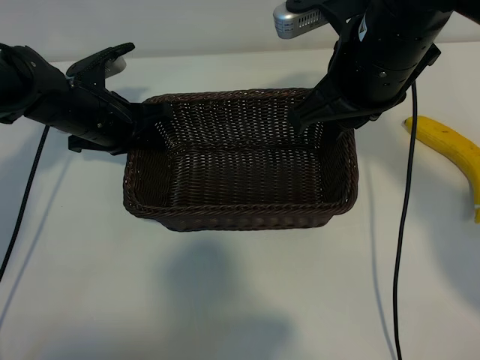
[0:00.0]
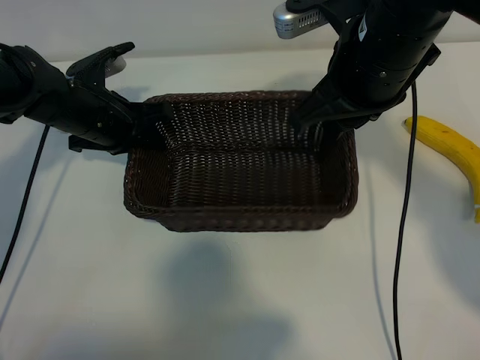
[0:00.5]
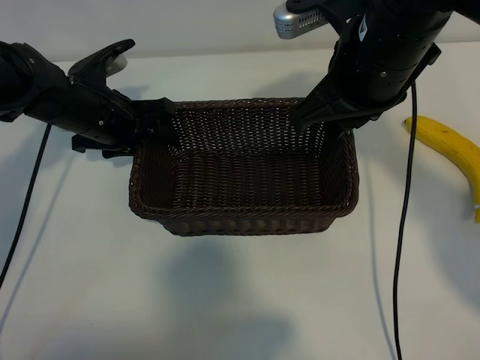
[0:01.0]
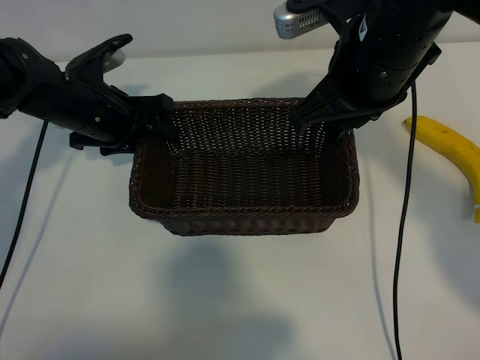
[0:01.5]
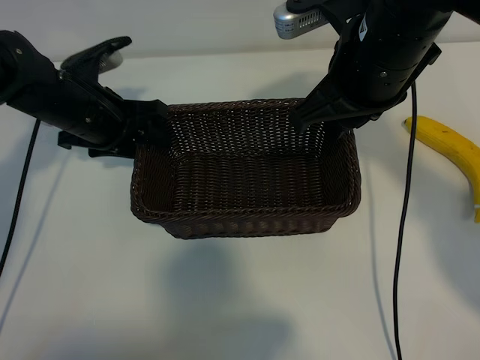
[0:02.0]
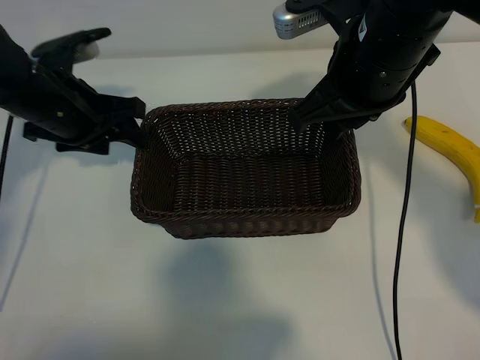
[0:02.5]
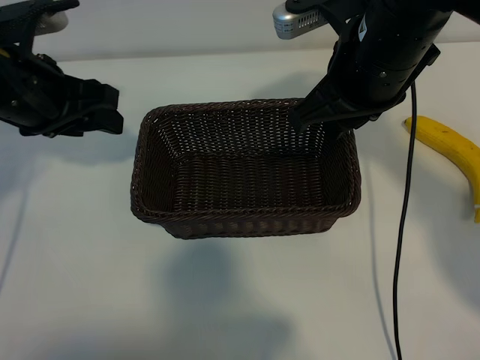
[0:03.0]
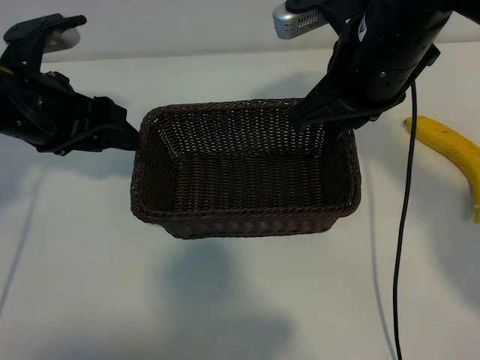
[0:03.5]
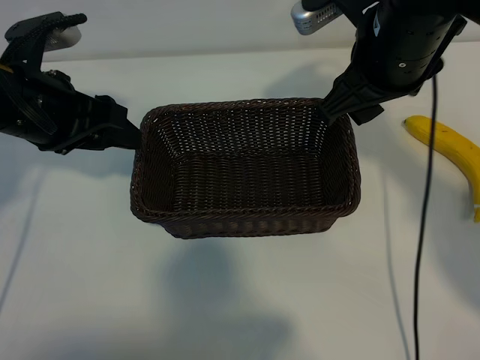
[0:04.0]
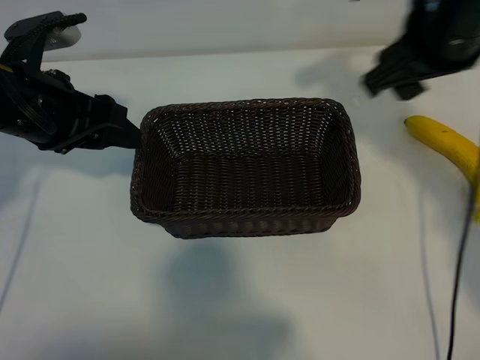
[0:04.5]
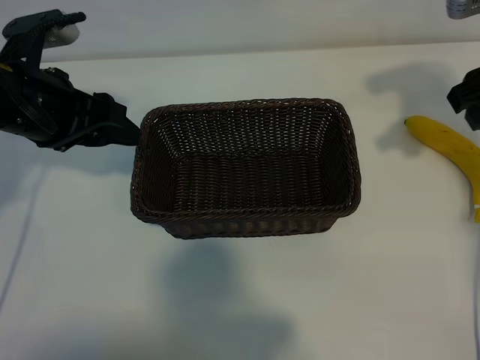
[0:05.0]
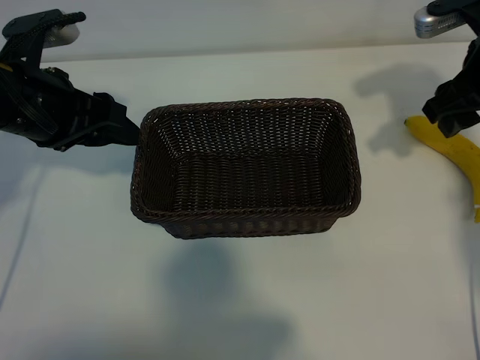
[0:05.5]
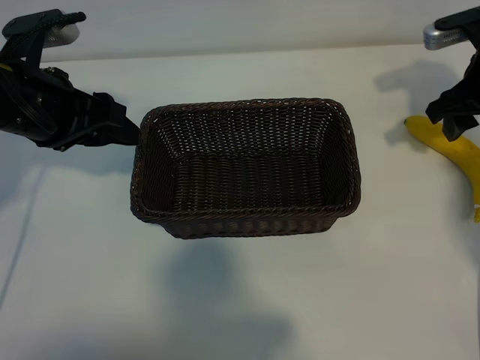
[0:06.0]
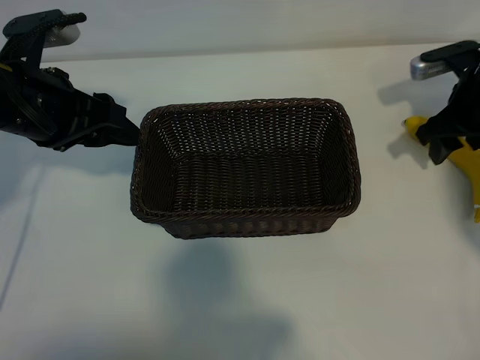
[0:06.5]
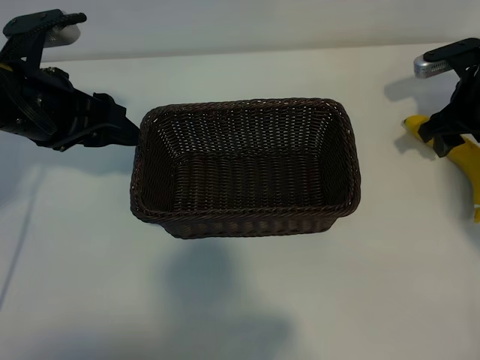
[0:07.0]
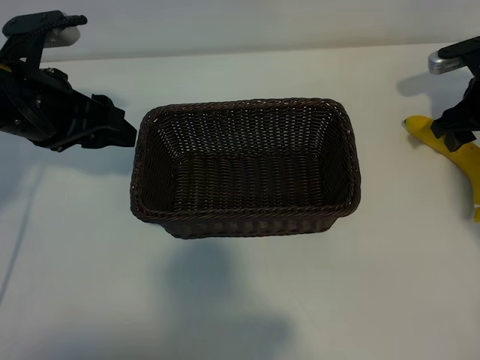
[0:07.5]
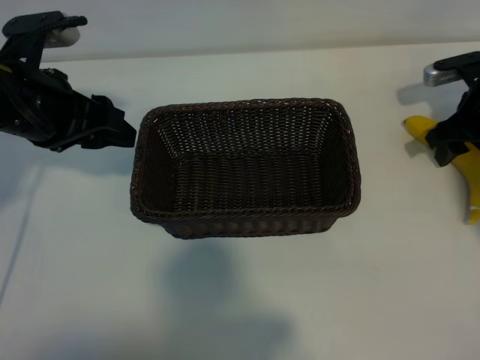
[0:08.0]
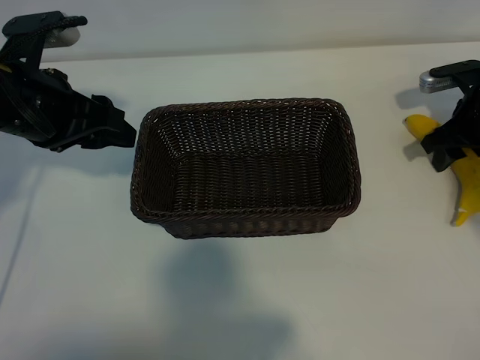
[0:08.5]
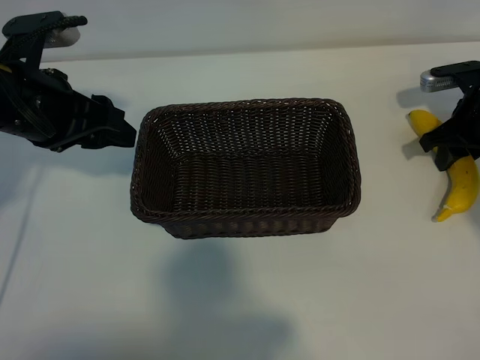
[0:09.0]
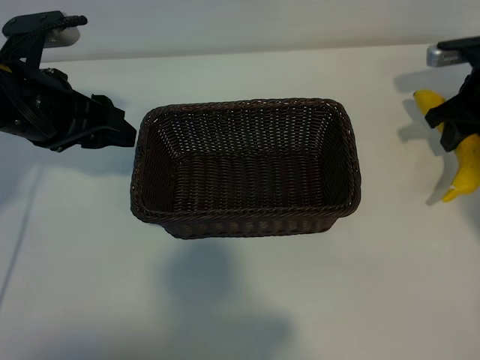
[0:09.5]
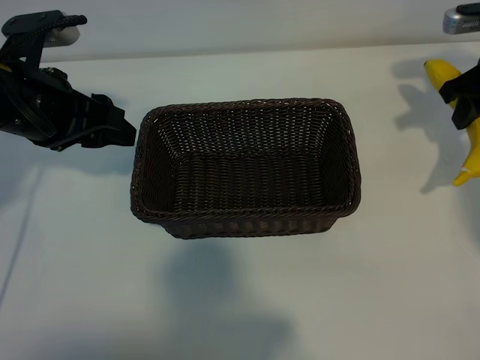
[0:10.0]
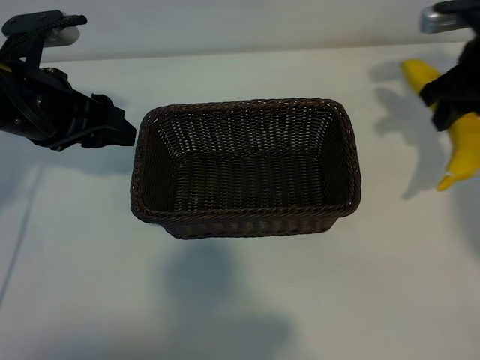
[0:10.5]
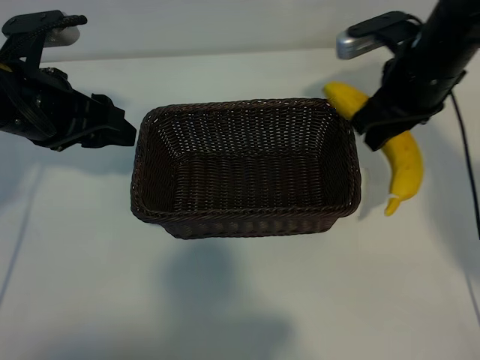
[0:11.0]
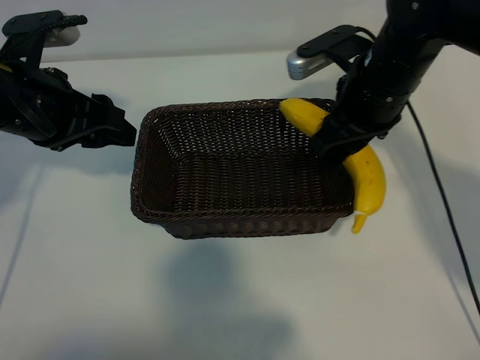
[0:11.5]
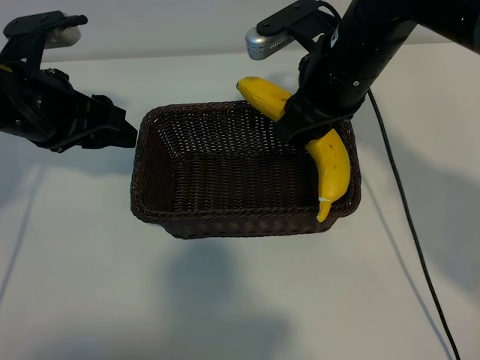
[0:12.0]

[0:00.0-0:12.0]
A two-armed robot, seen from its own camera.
Task of the whole recording: pick up the banana and put it into the basket.
Step, 0:00.0 to 0:02.5: Place the basket in the center of the table with the left gripper.
Step, 0:03.0 to 0:09.0: Grasp the banana with right gripper.

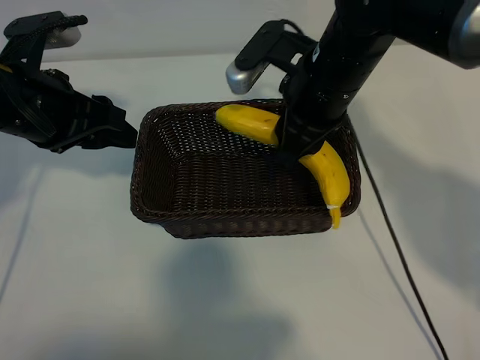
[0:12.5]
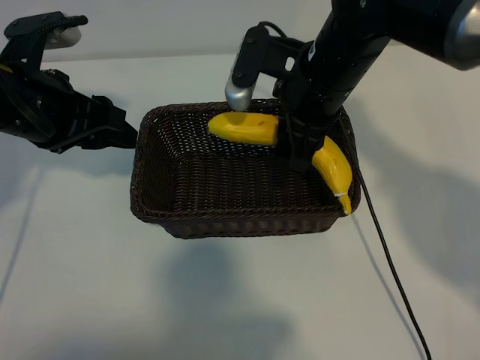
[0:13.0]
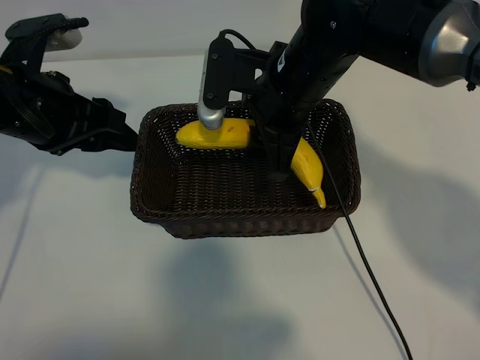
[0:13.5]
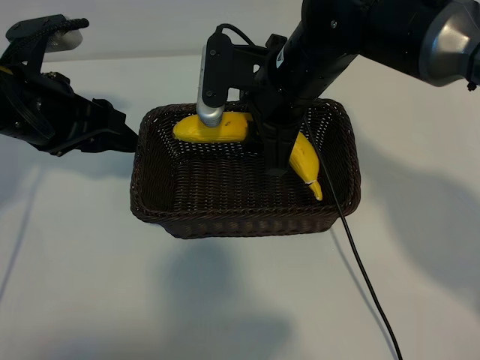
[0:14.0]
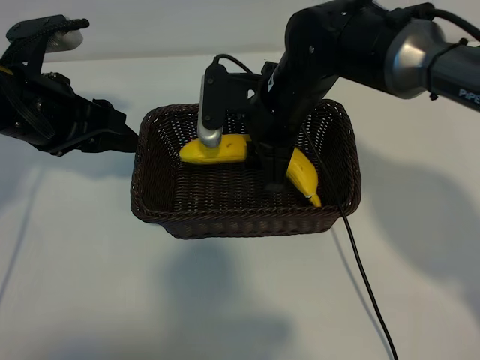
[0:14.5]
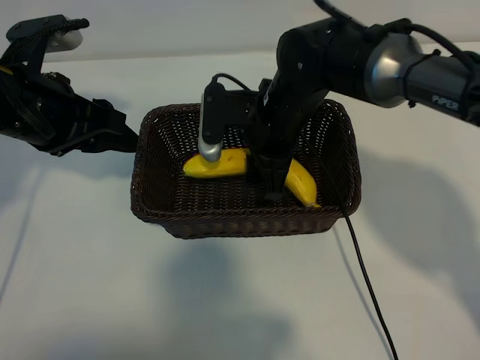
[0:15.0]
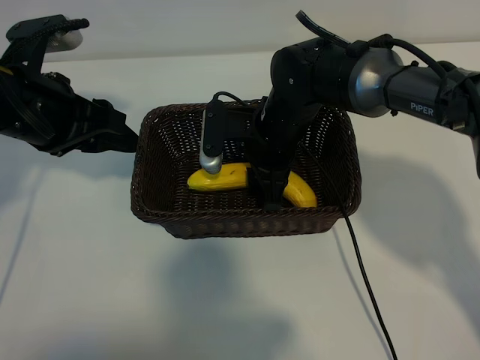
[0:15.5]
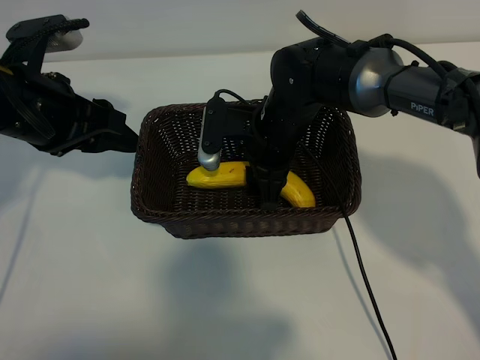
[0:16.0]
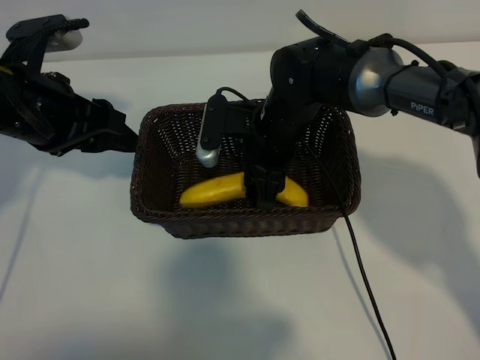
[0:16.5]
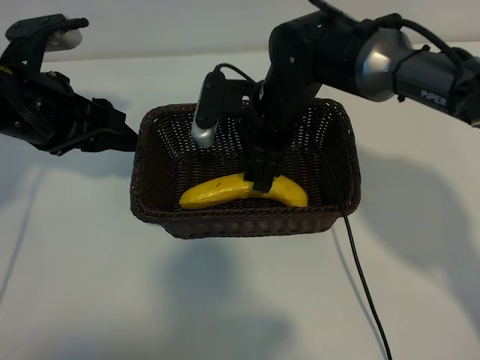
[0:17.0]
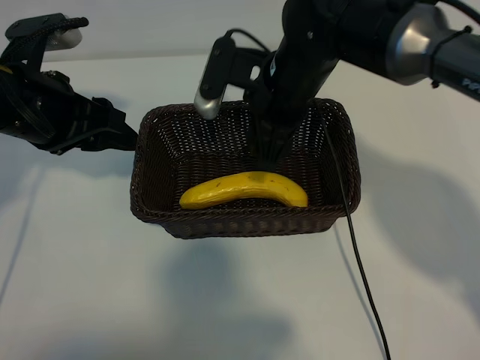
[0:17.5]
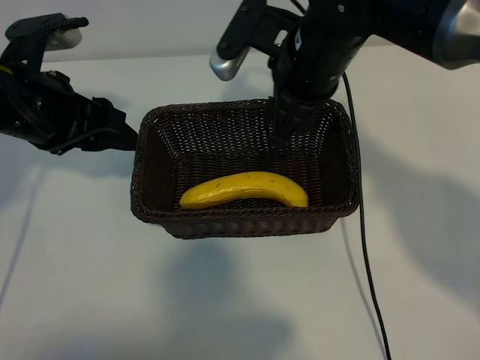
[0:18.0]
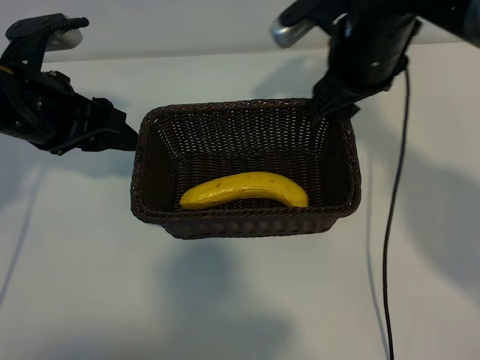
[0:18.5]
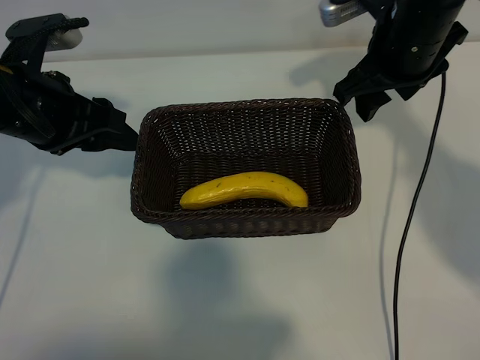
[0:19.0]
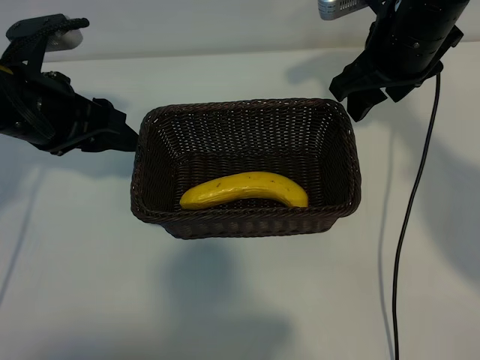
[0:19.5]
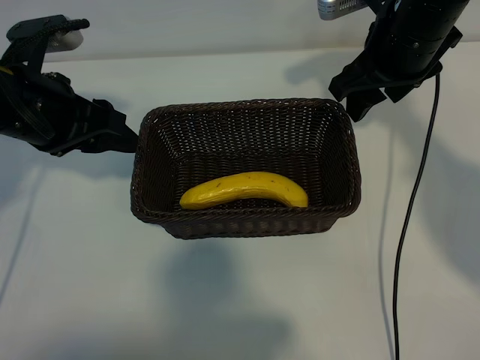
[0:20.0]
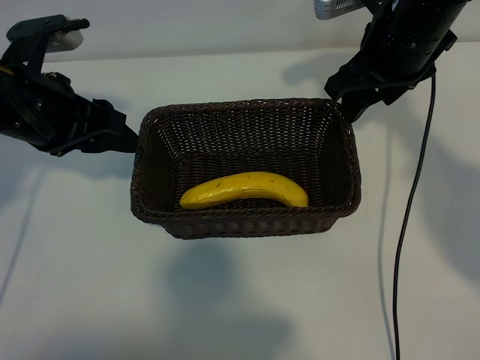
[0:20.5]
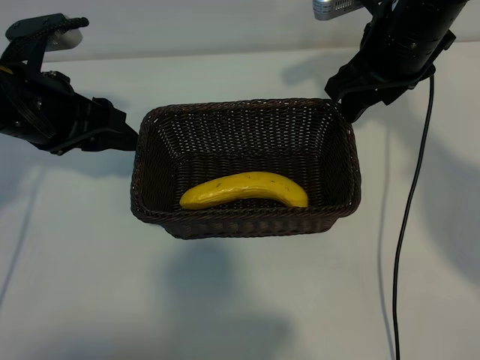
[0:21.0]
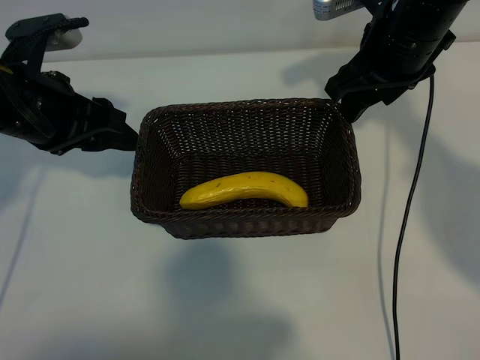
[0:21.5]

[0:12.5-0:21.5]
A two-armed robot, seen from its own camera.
Task of the whole recording: pick up the banana and put it into the basket.
Step, 0:12.5 to 0:17.0: Place the banana in the basket with right gripper.
